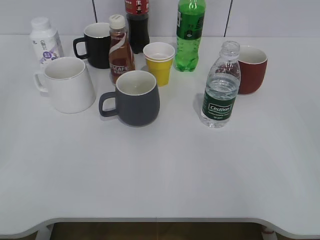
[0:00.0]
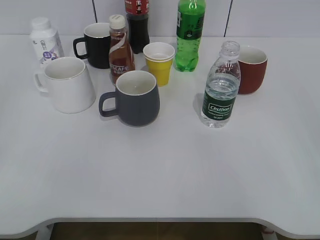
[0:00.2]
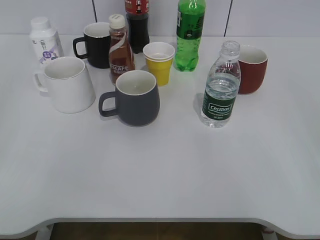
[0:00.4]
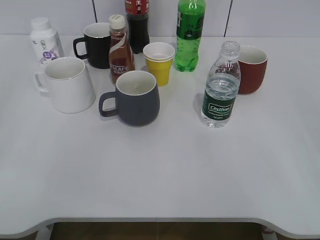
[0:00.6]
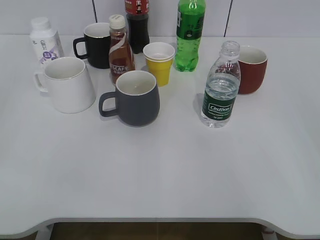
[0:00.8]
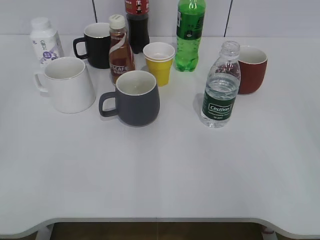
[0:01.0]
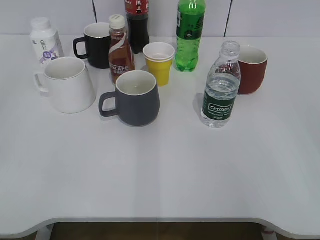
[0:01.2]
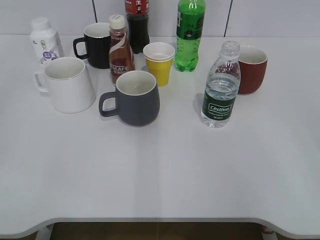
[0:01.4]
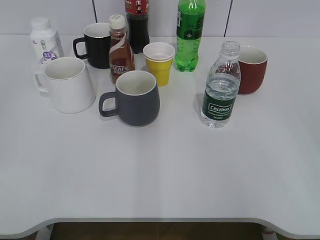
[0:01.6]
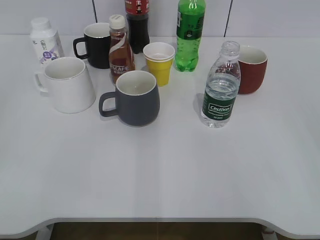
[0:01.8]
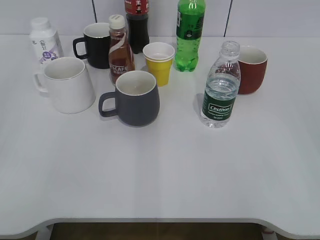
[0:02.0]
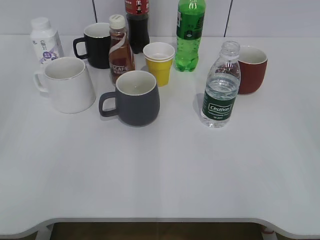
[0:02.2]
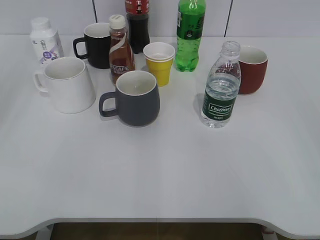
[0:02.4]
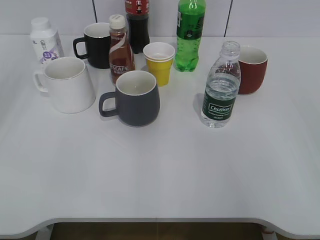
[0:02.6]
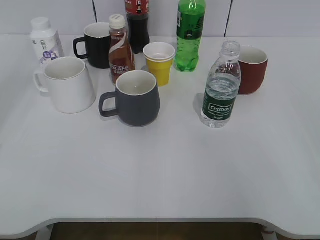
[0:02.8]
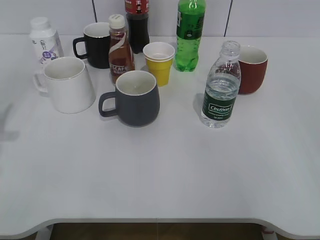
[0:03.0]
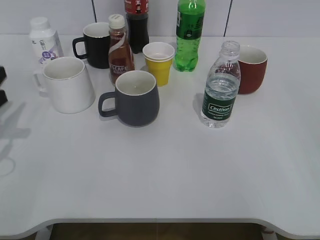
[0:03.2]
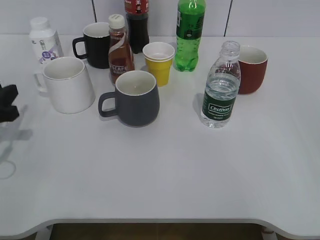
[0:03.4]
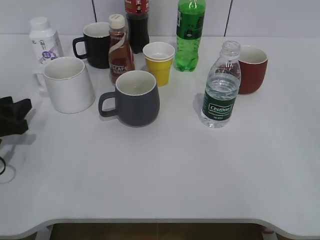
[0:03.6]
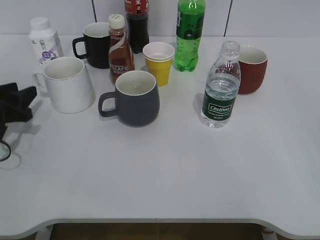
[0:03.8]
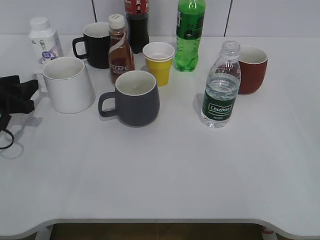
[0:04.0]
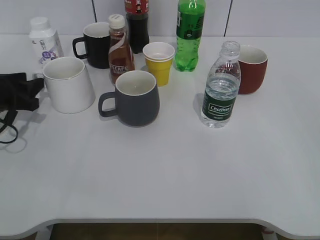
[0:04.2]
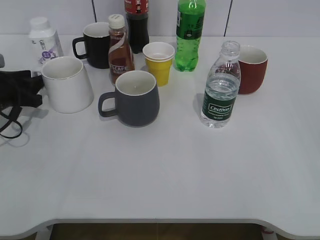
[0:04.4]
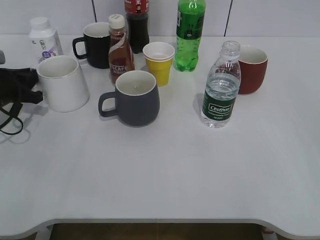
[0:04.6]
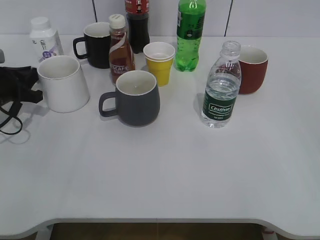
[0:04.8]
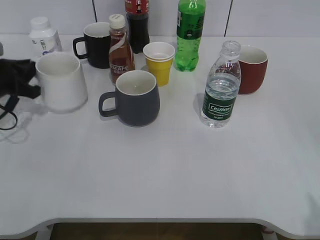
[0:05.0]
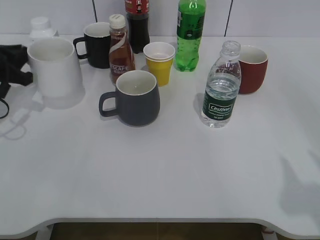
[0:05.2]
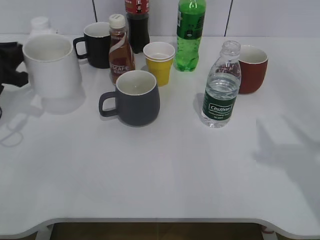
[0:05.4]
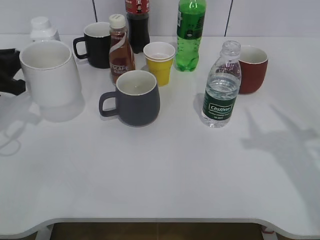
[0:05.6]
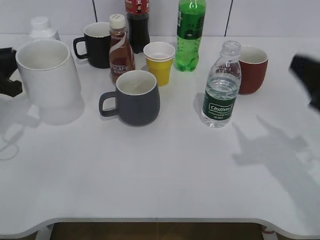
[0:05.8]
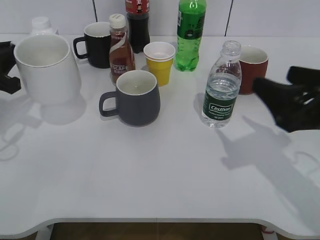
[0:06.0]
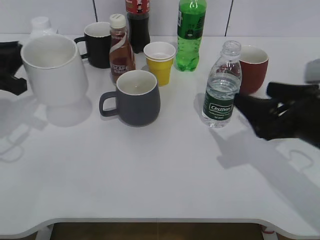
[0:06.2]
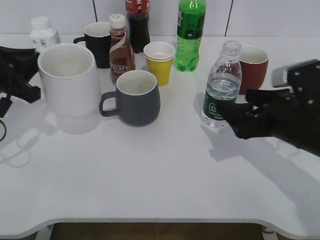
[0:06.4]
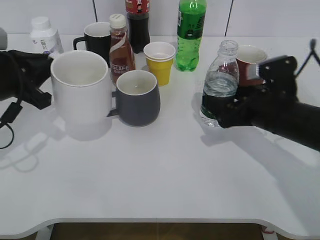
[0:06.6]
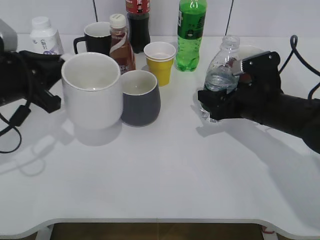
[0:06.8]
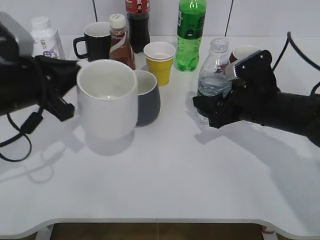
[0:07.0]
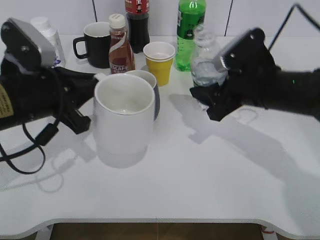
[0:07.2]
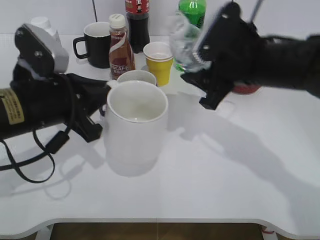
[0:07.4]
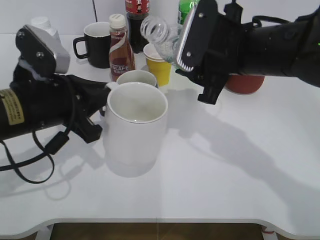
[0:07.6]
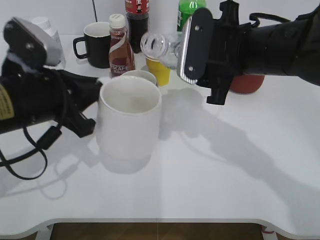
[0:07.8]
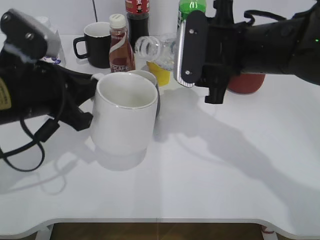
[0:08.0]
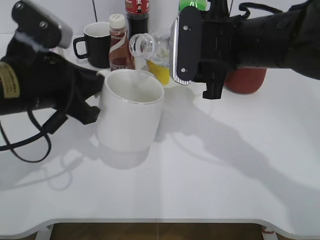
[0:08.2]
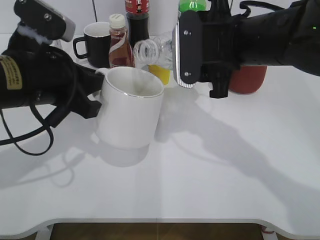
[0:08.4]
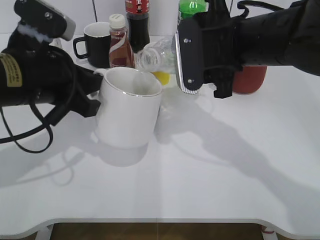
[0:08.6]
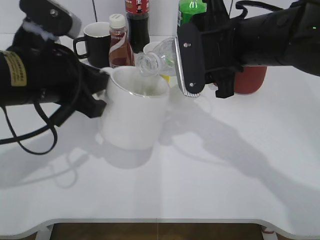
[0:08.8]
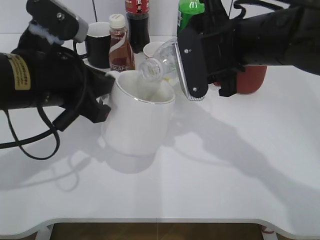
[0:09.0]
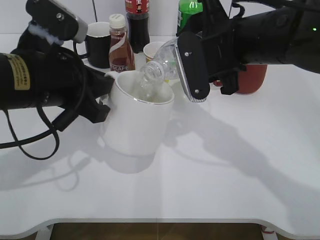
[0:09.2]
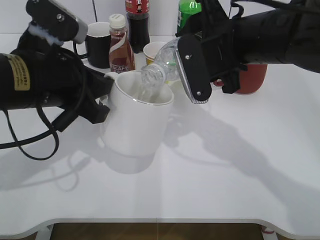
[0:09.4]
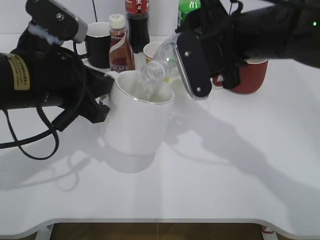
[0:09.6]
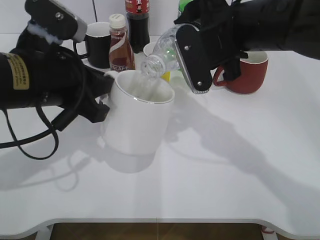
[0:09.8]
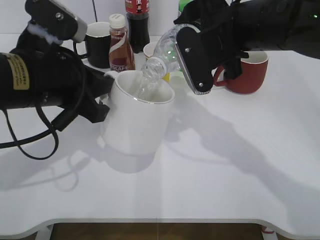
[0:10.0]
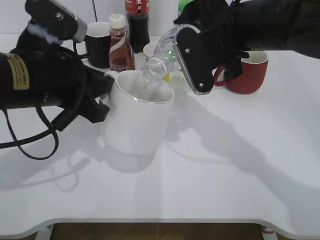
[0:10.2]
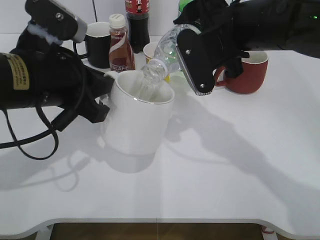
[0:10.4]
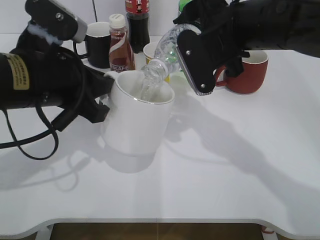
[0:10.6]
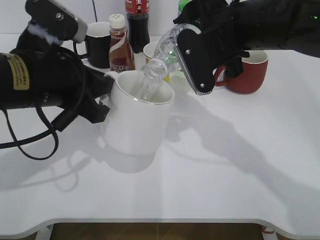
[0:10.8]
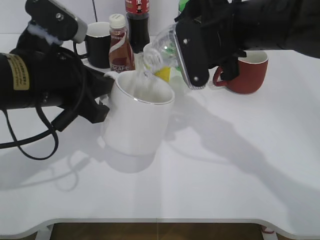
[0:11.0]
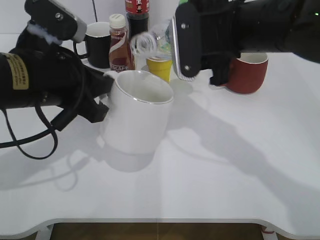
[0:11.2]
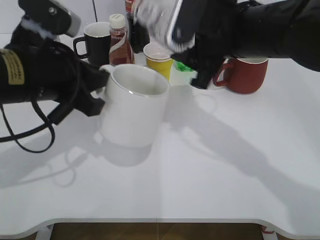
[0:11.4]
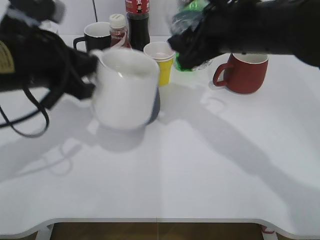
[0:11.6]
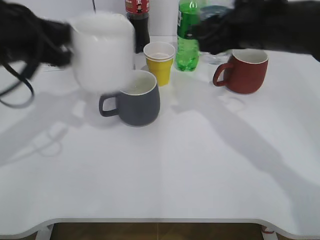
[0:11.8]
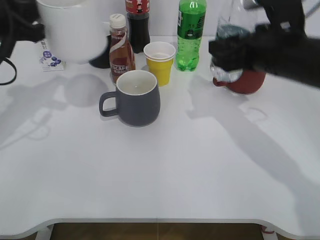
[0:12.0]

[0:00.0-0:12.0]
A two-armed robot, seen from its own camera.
Step, 0:02.0 to 0:04.8: Grasp the white cup with left gripper.
Step, 0:05.0 to 0:05.6: Lift the white cup with left gripper.
Step, 0:05.8 to 0:06.6: Grasp the bottle with water with right gripper.
Step, 0:06.8 to 0:11.0: Pour the water from bottle to cup with right gripper.
0:03.0 to 0:04.4: The left gripper goes approximately 20 cm forward and downward.
0:04.4 to 0:06.0: The left gripper is displaced upward and backward by some 10 cm, and closes; the right gripper shifts roughly 20 cm forward and to the left, and closes, then opens again.
0:06.0 to 0:07.6: The right gripper travels to the left and forward by about 15 cm, and closes up. The left gripper travels to the right and backward by about 15 cm.
0:09.0 to 0:10.4: The grippers stay close to where they were, moving slightly.
0:10.4 to 0:12.0: The left gripper moves to the left and forward, roughly 10 cm, while the right gripper shifts some 5 cm to the right.

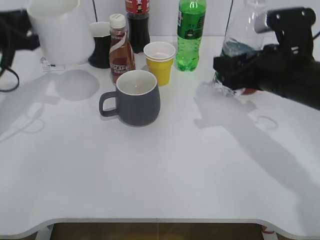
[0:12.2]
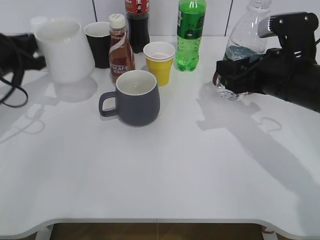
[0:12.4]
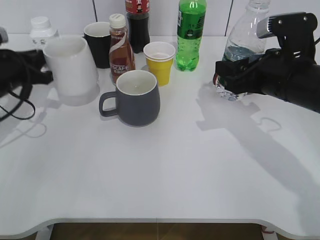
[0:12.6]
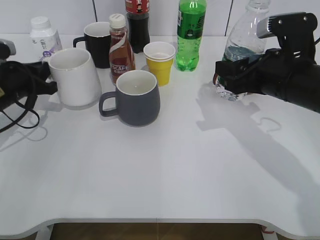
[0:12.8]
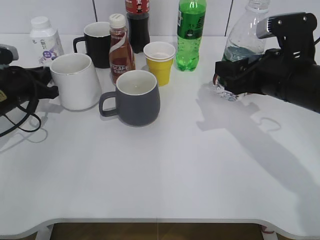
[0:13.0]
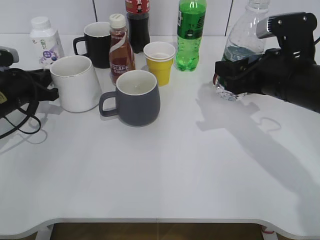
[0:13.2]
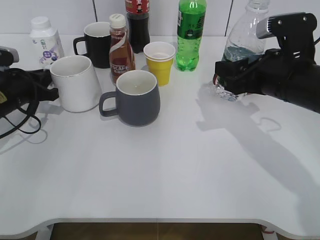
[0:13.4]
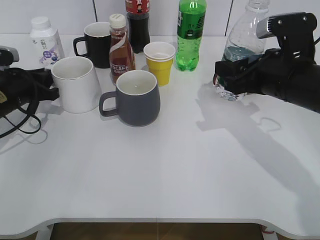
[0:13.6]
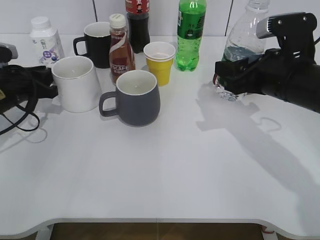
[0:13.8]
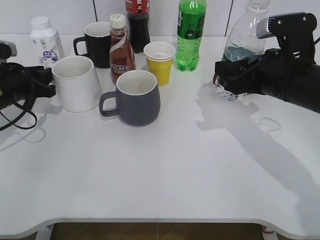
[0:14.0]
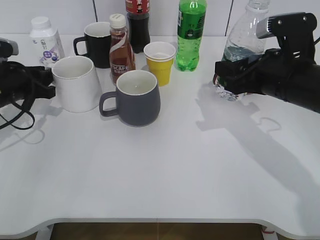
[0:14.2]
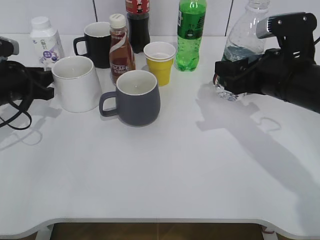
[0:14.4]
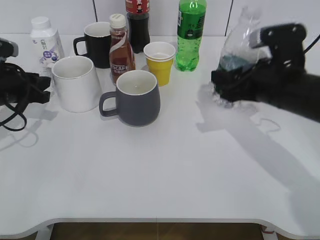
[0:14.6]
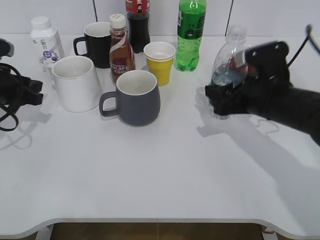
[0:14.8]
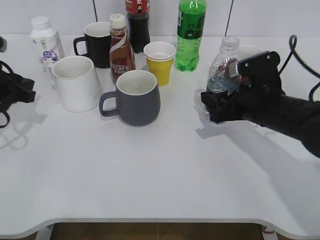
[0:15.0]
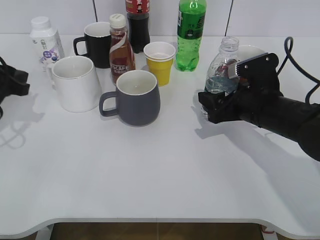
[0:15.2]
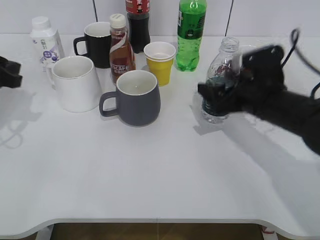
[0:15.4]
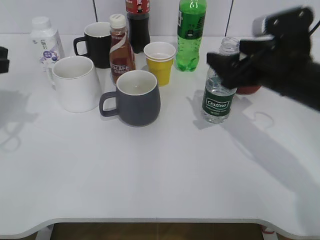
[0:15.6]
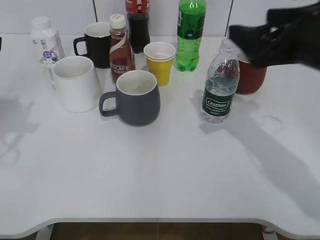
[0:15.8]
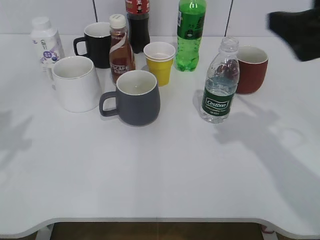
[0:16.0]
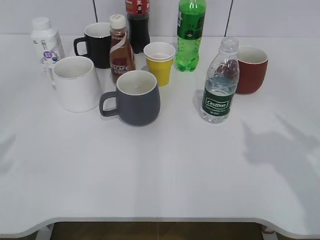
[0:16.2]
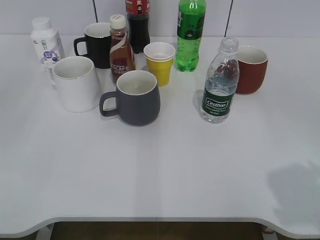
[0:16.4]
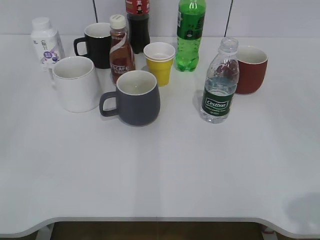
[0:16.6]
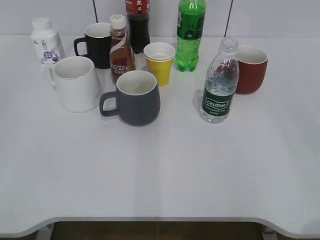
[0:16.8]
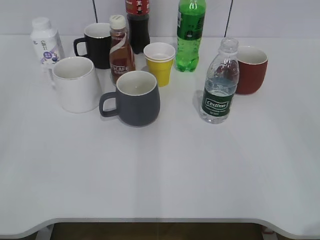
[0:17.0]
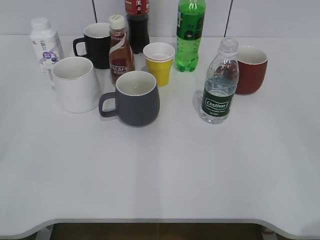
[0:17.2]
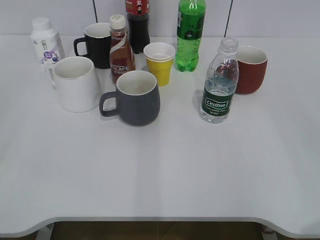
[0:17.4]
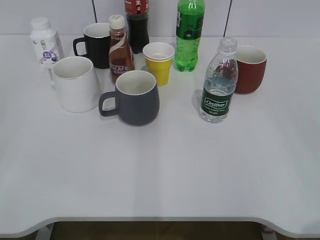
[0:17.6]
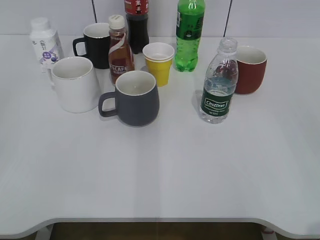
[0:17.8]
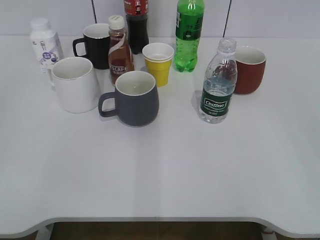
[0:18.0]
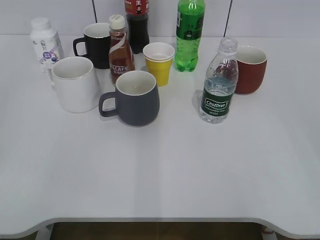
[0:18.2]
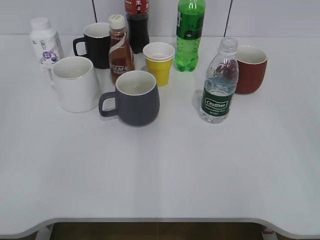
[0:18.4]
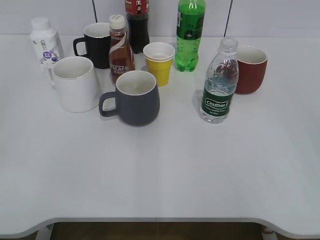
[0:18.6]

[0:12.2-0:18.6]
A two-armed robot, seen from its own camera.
Step, 0:12.2 to 0:14.2: Place the white cup on the table with left gripper.
Step, 0:14.4 to 0:15.4: Place the water bottle on the table with right gripper.
0:12.2 to 0:13.8: The left gripper shifts about 10 cm downward, and opens its fingers.
0:13.8 to 0:15.4: The right gripper moves downward, roughly 5 cm, and opens its fingers, while the left gripper moves upward, roughly 10 cm.
0:15.4 to 0:17.0: The left gripper moves backward, approximately 30 cm, and opens. Meanwhile the right gripper moves backward, upward and to the right, roughly 35 cm.
